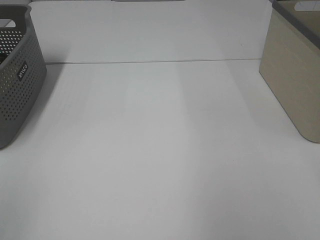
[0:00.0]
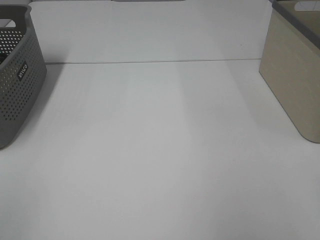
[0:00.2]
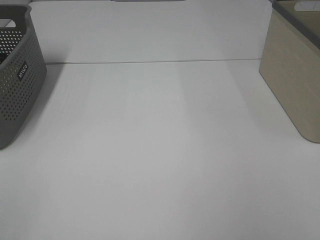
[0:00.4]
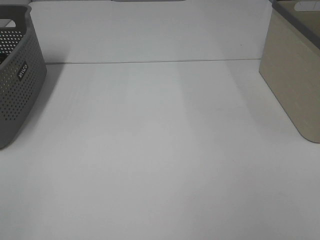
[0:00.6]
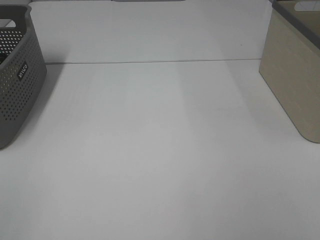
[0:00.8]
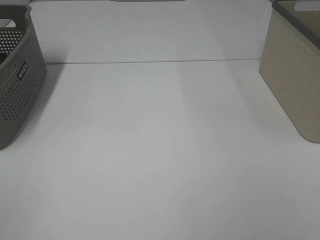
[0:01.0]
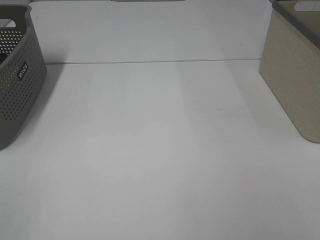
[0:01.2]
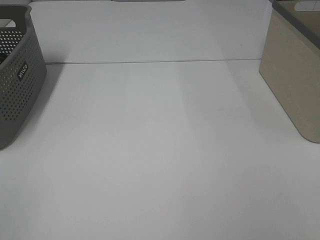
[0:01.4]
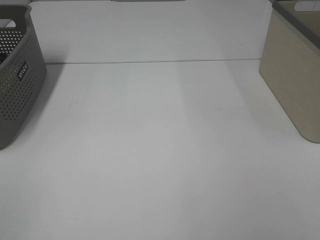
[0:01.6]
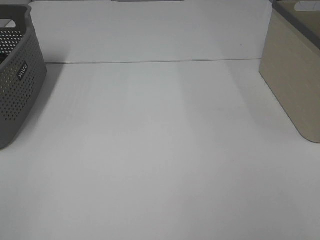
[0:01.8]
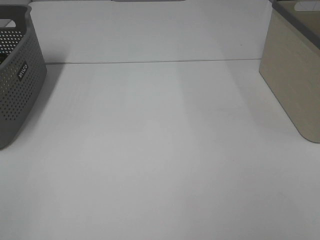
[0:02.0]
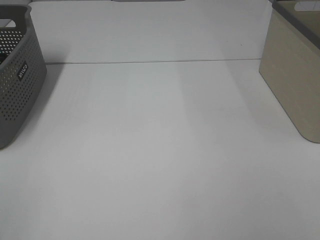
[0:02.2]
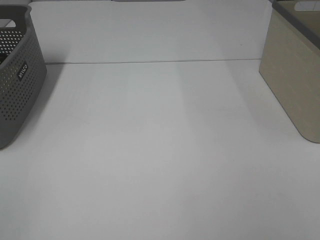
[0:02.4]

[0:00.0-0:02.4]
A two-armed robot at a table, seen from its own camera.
1.2 to 2.4 s: Both grippers stay put.

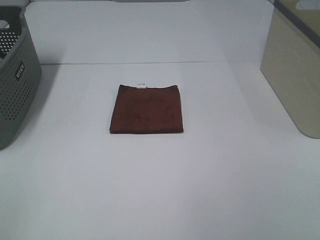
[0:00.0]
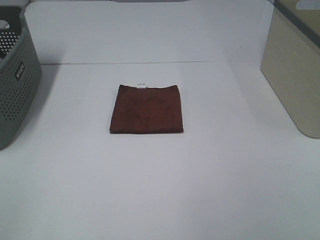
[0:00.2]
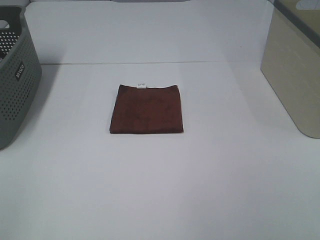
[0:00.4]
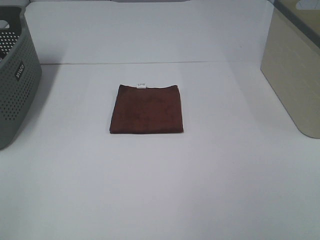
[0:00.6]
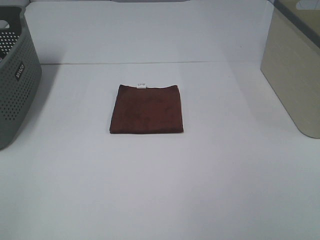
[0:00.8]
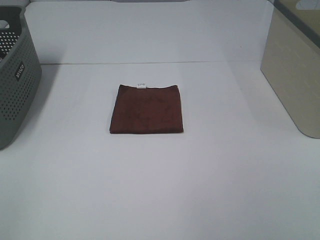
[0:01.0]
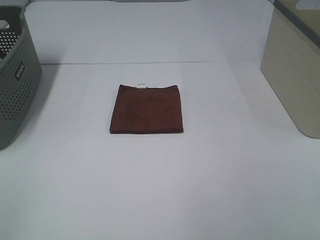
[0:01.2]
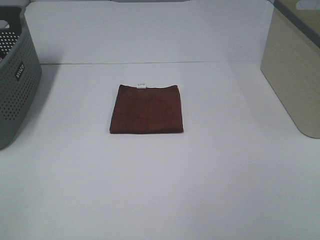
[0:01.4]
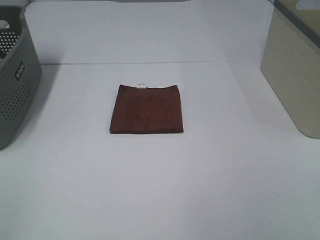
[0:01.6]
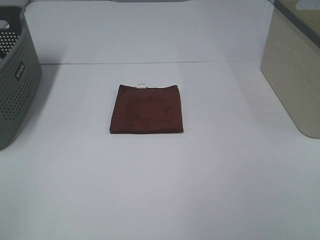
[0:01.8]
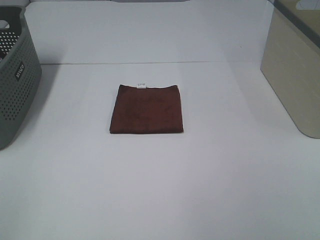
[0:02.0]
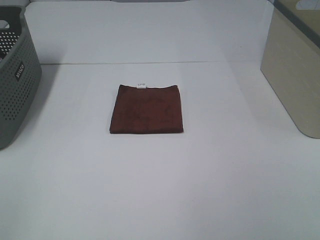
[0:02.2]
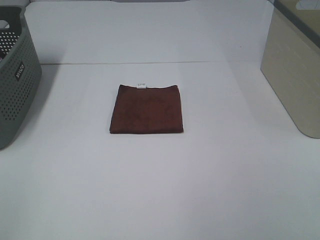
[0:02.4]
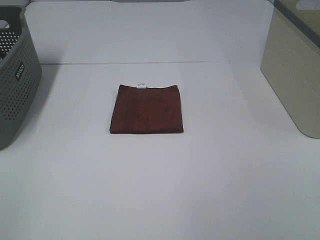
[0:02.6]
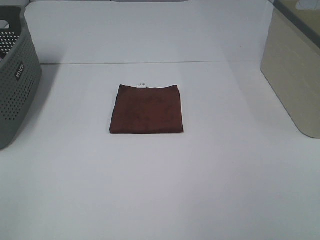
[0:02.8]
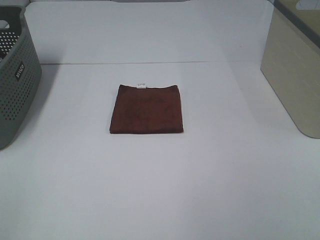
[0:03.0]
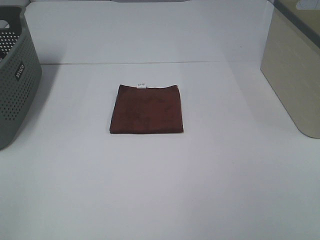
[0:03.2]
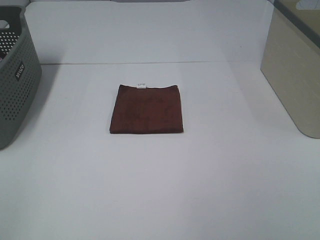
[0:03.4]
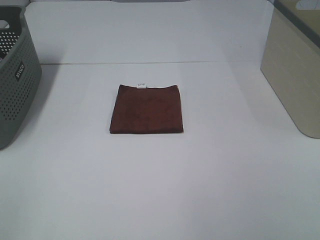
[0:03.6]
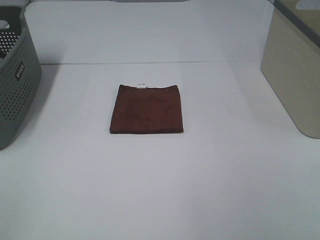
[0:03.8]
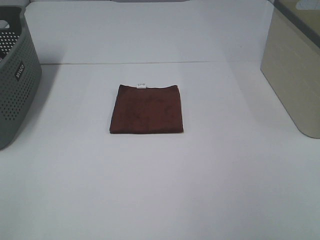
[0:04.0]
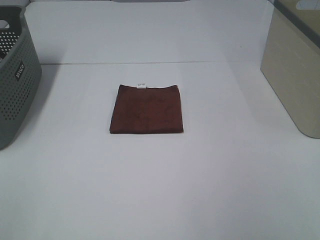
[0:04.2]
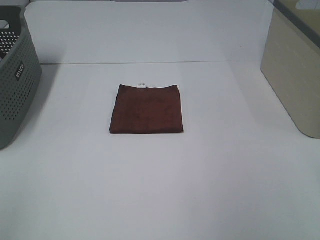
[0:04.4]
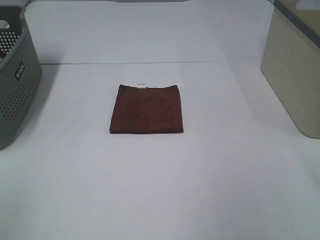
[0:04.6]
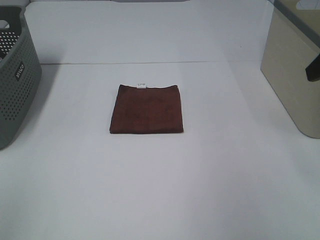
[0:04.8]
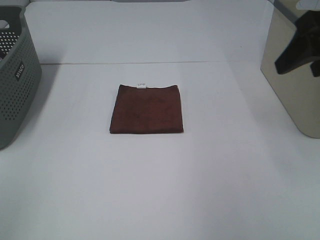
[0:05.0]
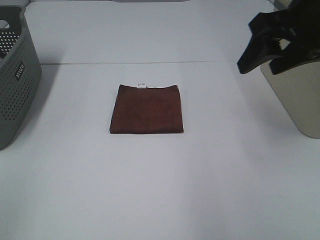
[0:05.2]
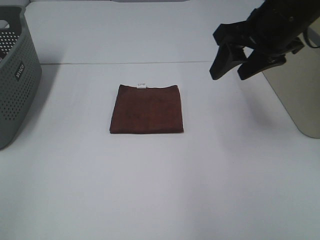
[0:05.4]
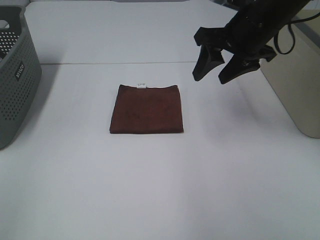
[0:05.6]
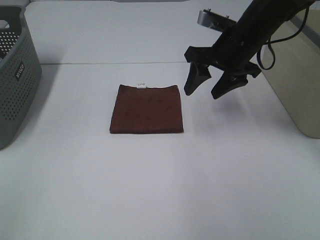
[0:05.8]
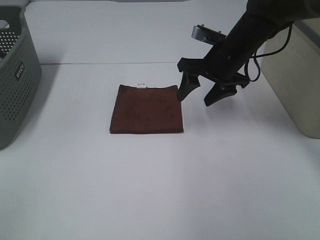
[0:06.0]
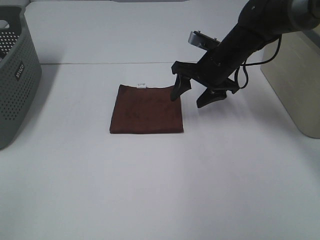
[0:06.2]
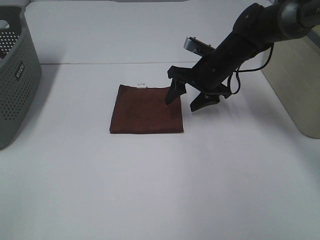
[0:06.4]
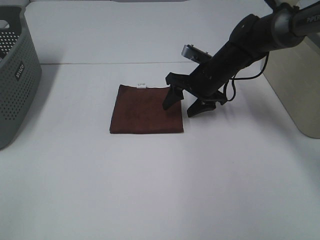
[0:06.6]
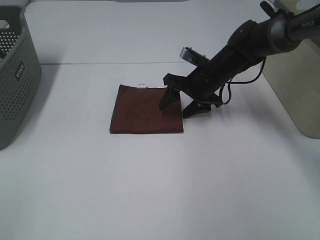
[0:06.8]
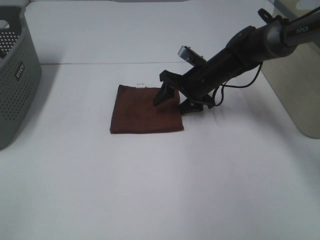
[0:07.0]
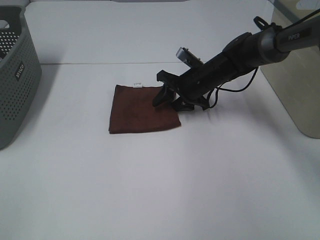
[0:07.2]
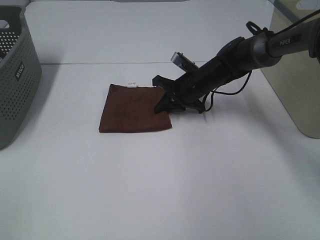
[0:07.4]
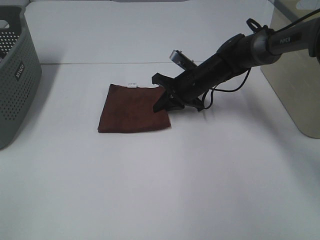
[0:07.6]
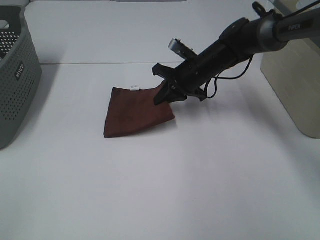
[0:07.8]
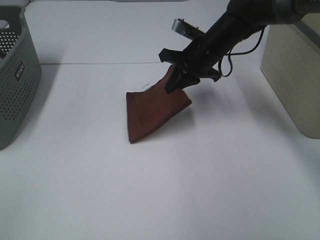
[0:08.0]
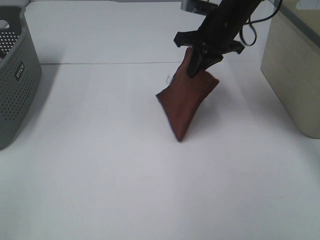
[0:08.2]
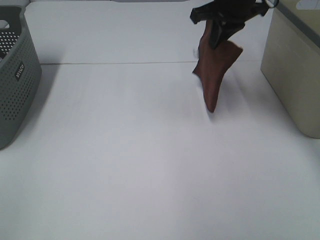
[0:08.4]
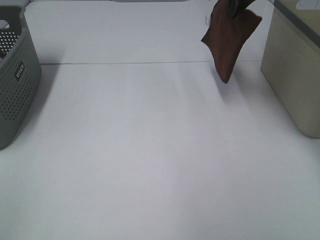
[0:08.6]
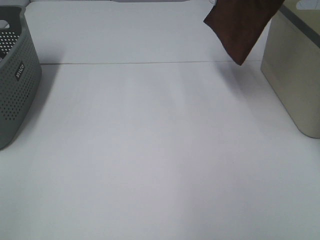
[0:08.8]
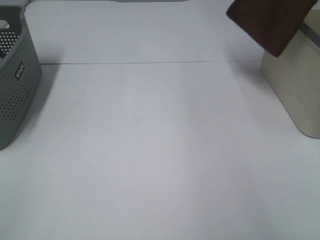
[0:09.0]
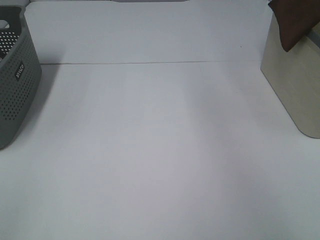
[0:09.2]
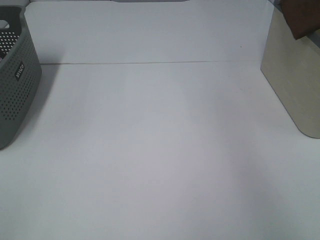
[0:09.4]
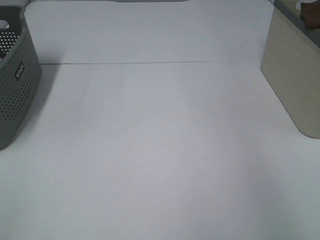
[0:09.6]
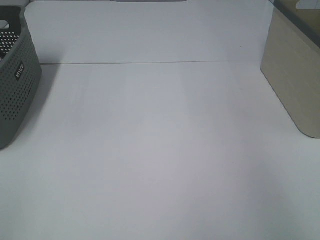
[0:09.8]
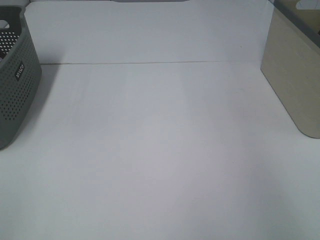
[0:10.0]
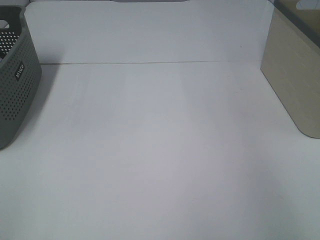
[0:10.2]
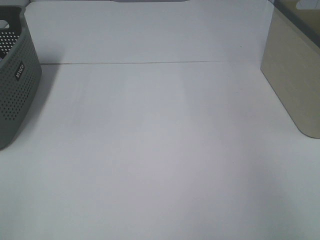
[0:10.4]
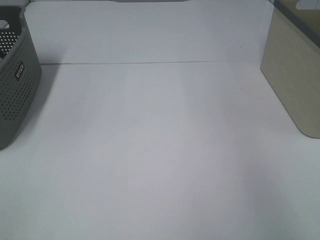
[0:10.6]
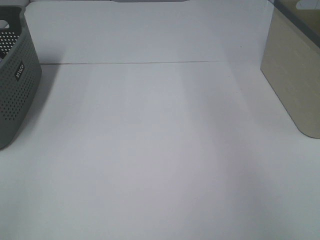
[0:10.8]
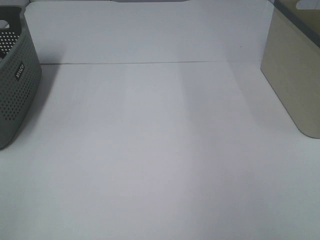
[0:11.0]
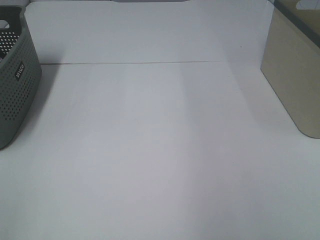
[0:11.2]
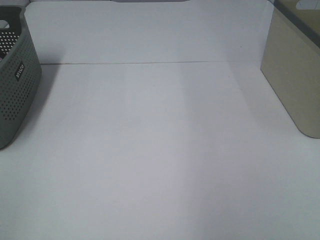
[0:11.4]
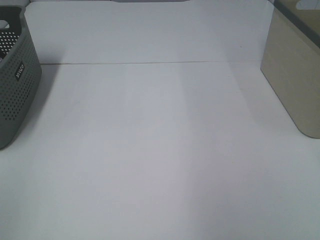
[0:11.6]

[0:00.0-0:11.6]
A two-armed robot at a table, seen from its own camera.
Step, 0.0 to 7.6 s: Right hand: grab the folded brown towel.
Step, 7.8 to 10.2 s: Right hand: place the brown towel in right basket.
0.0 to 2.8 s: Both grippers stay about where they are.
4.4 to 5.8 s: The right gripper shifts some 30 cm forward, to the left and downward.
5.8 to 7.2 s: The right gripper heads downward and forward, covering about 15 cm.
7.2 to 8.8 s: The right gripper moves upward, about 30 cm, and closes its fingers.
8.8 to 10.2 s: The right gripper travels to the right by some 20 cm, and opens up.

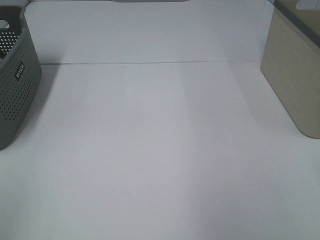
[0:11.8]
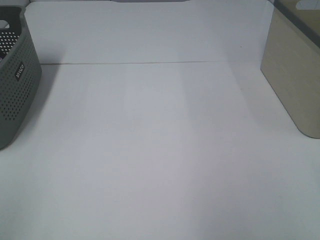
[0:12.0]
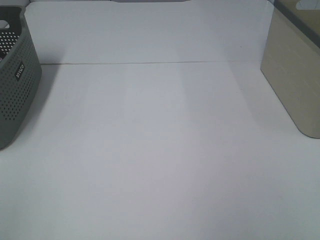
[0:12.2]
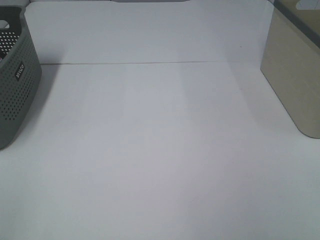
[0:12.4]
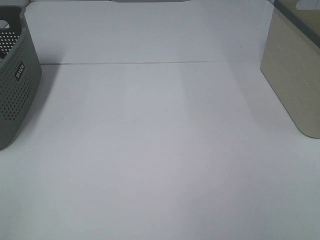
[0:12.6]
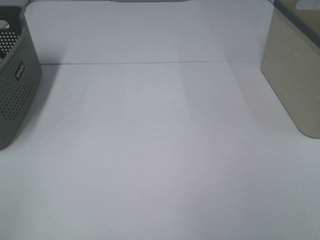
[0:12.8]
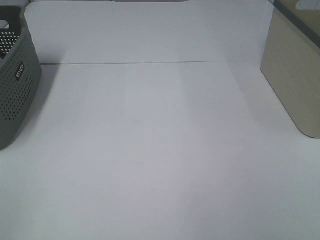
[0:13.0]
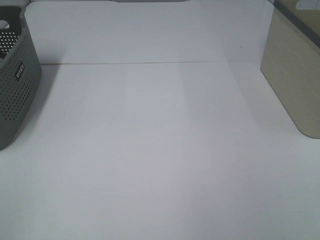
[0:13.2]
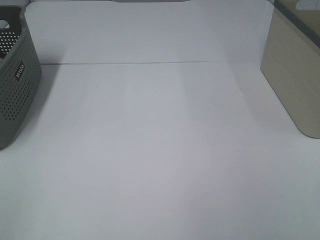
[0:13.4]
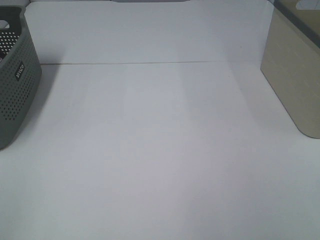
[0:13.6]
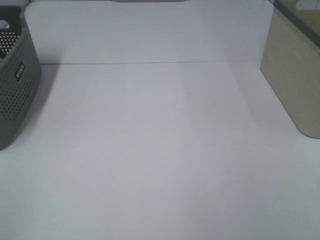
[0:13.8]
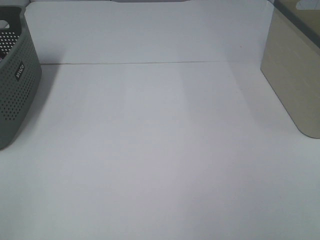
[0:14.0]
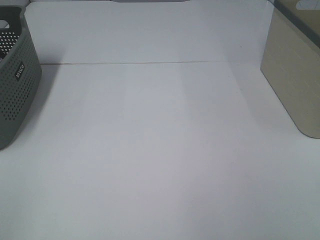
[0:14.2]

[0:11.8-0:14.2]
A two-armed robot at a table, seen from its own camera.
13.0 to 14.2 s: Both grippers stay about where they are.

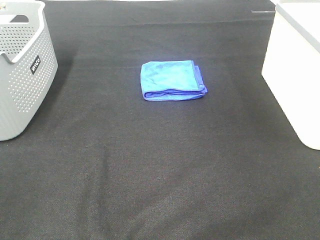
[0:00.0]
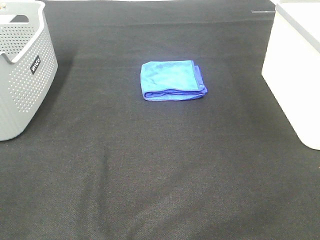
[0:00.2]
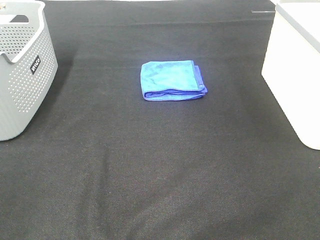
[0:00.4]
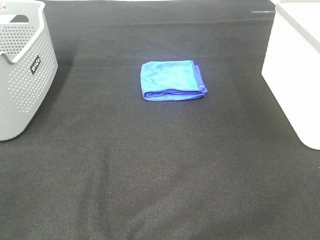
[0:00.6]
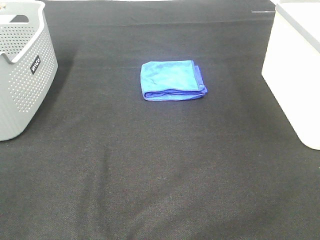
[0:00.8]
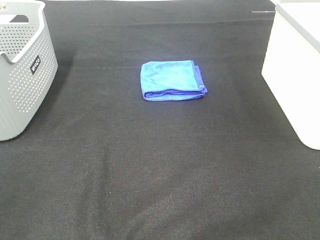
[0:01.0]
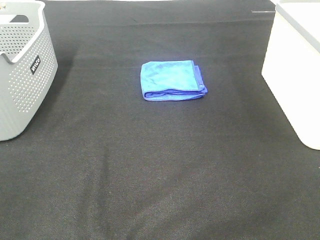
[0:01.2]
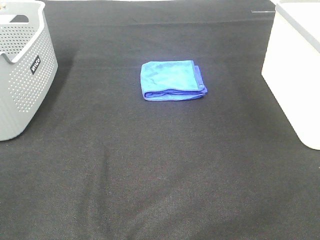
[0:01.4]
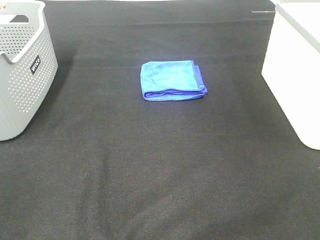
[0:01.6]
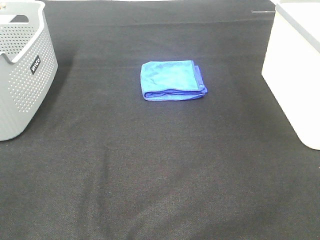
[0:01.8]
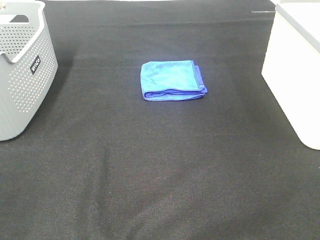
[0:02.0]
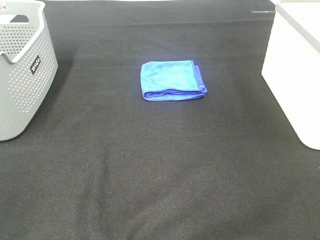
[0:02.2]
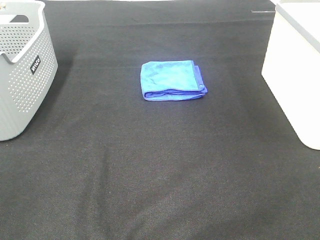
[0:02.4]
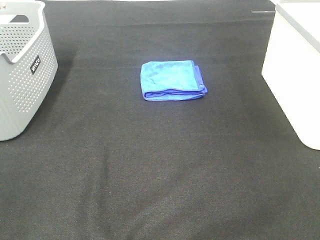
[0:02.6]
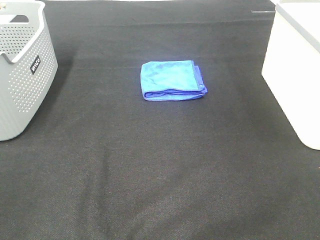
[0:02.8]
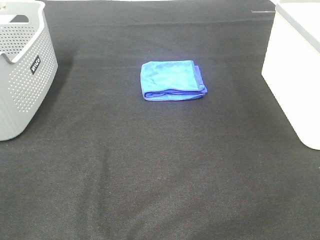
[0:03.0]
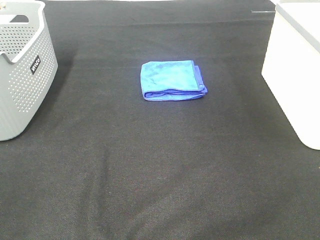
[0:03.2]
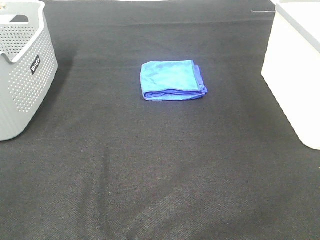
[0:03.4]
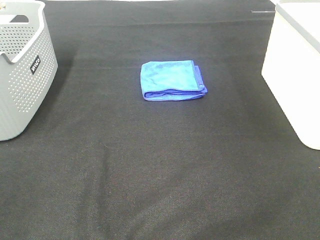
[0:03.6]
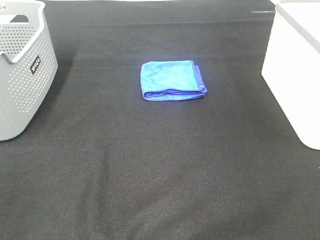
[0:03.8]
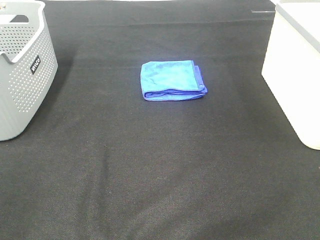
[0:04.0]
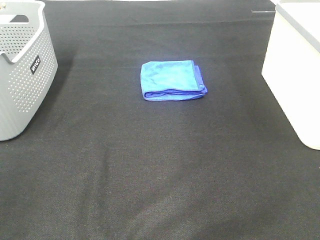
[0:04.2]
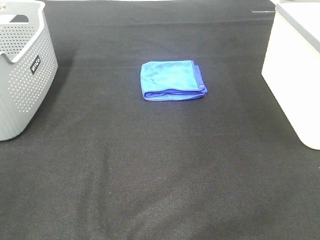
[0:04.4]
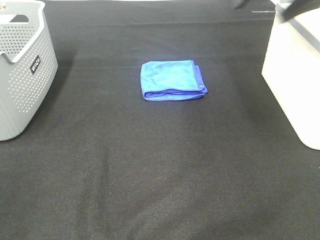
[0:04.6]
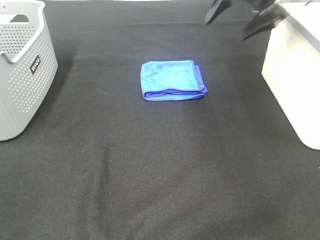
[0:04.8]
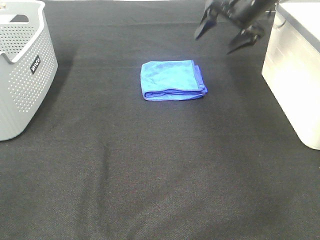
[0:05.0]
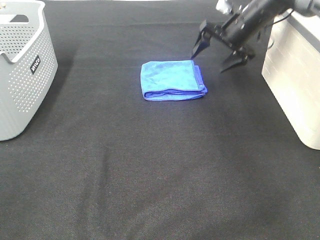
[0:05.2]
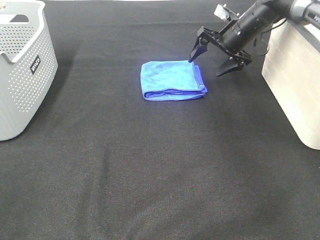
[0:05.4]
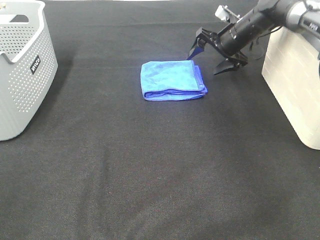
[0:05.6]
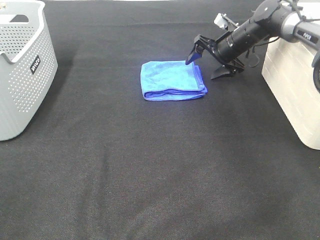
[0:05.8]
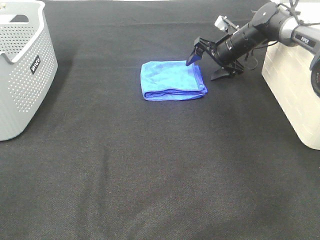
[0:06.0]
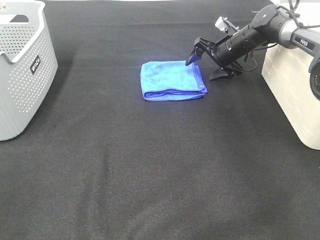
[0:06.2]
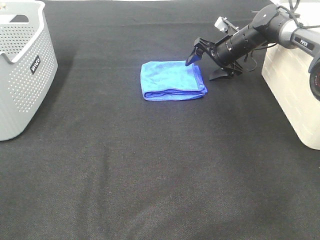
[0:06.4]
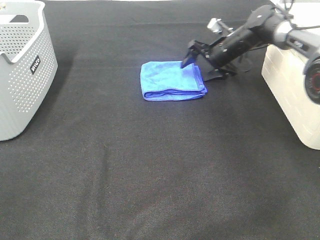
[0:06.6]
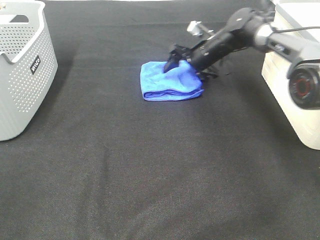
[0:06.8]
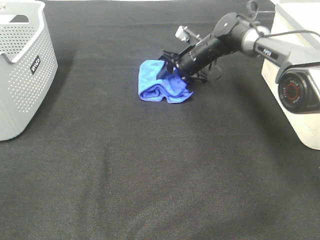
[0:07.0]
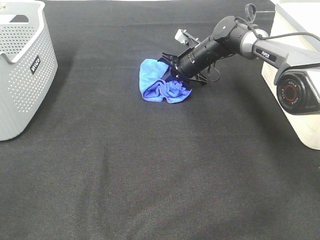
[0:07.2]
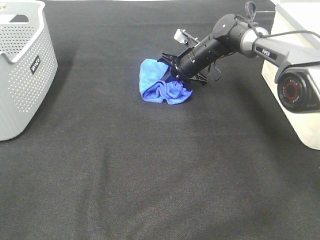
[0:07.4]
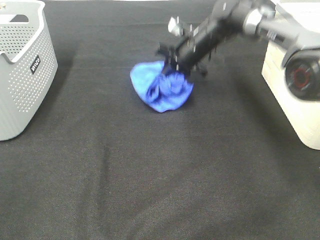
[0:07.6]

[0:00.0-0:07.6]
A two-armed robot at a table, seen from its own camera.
Step, 0.0 to 7.0 s: Right hand: grab the folded blue towel.
0.0 to 3.0 s: Neither gripper changes place.
3.0 to 4.6 s: The right gripper travels forward by approximately 40 cm.
4.6 to 6.0 s: The right gripper heads downward and forward, covering about 30 cm.
6.0 to 7.6 s: The right gripper moves to the left, about 10 cm, and closes its fingers.
